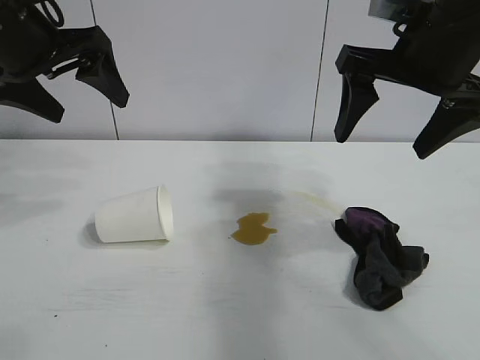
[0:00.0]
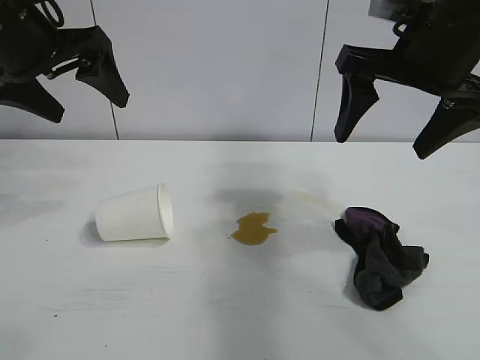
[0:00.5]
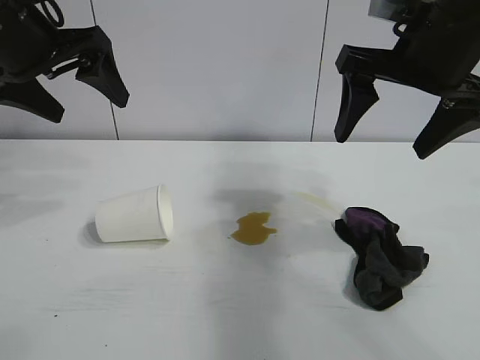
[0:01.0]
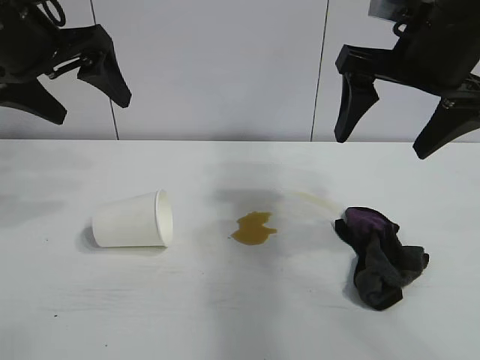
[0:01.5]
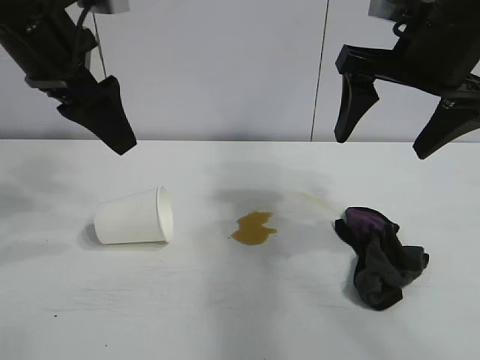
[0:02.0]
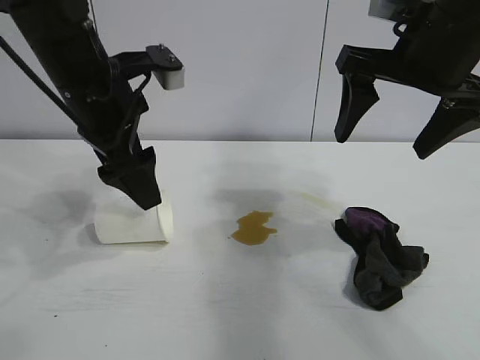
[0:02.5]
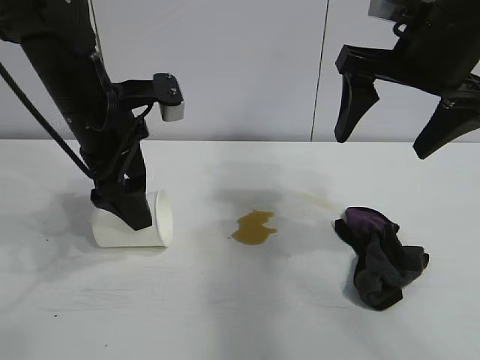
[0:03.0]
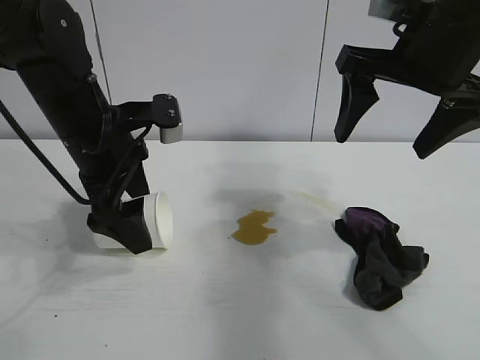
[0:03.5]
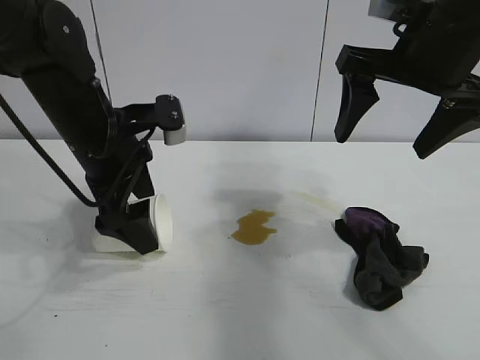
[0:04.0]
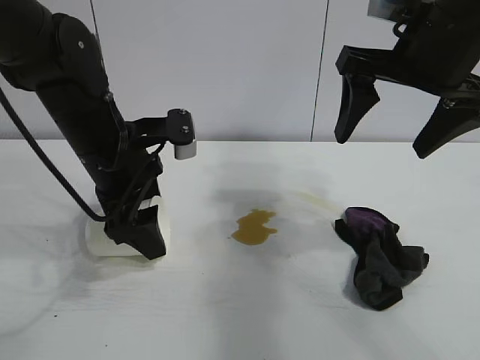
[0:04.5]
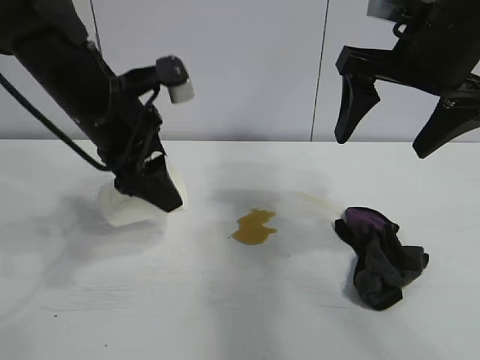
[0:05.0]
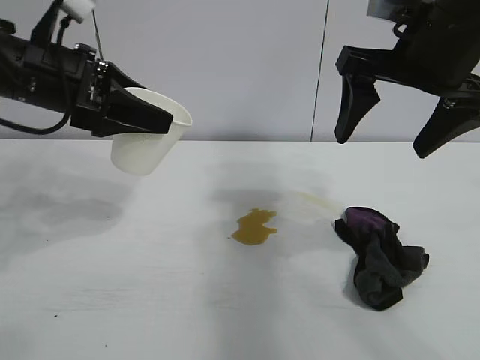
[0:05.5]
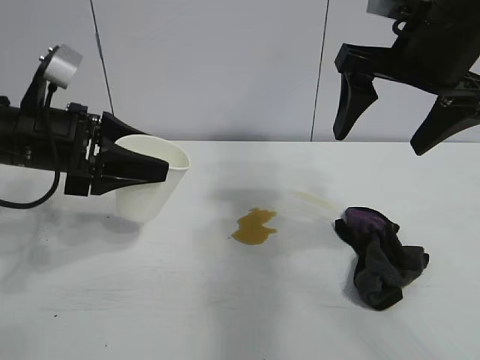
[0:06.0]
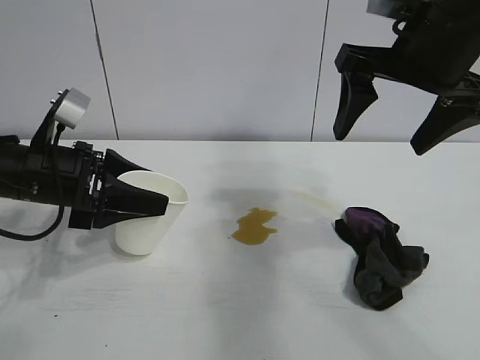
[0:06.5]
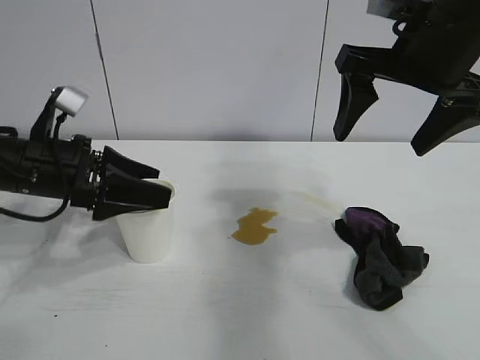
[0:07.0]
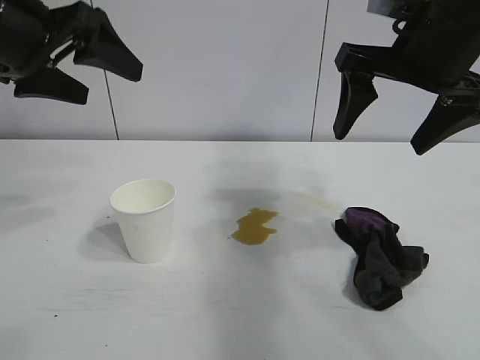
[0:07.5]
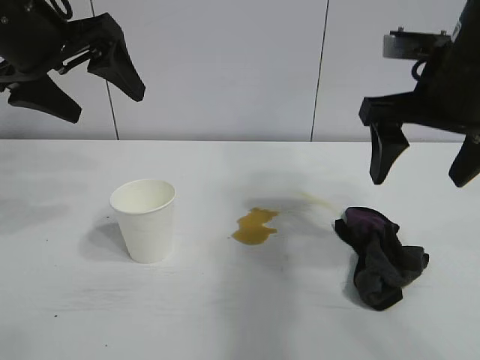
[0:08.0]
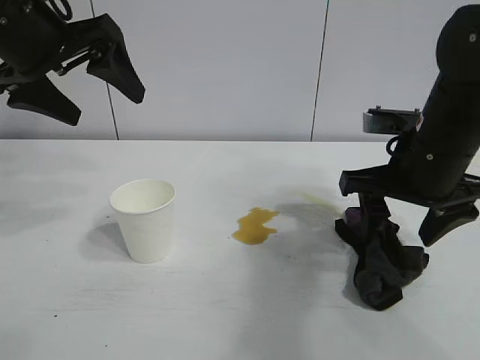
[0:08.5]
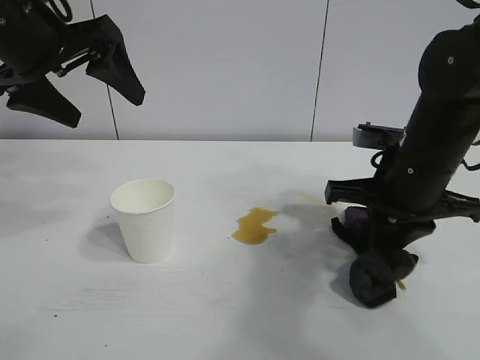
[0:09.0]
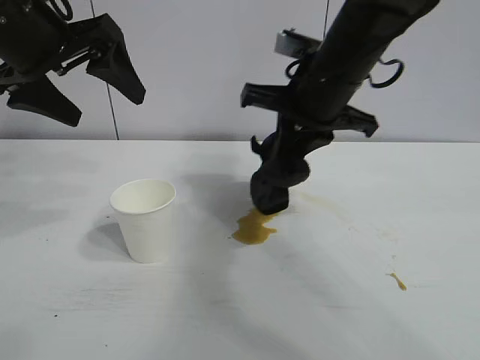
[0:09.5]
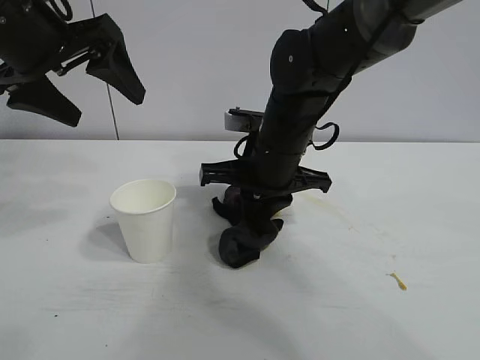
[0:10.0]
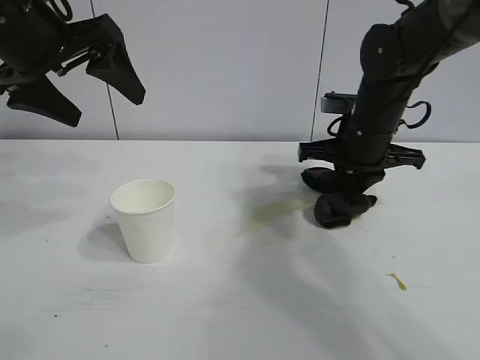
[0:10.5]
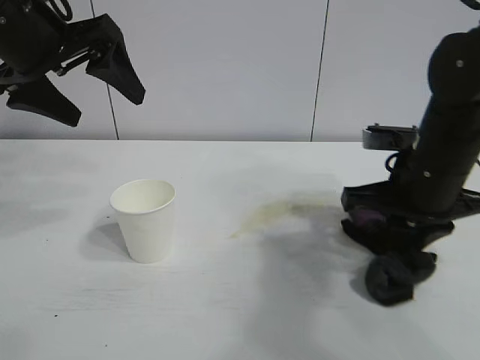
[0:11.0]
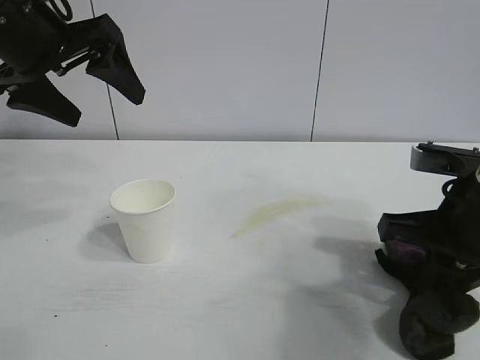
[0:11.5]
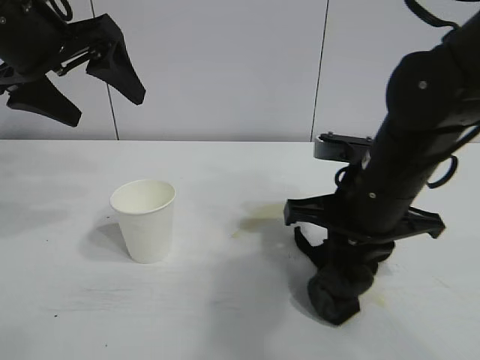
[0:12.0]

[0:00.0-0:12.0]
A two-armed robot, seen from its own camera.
Task of the whole recording: the left gripper pick up the fallen cup and place it upright, the right gripper grasp the black rag and wipe the stain on the table, the right gripper put the black rag back in its original position.
Step, 0:01.5 to 0:04.0: Grasp the paper cup with left gripper.
Step, 0:04.5 to 0:06.5: Stand the paper cup upright with left gripper.
Step, 0:07.0 to 0:08.5: Grasp the rag with right gripper.

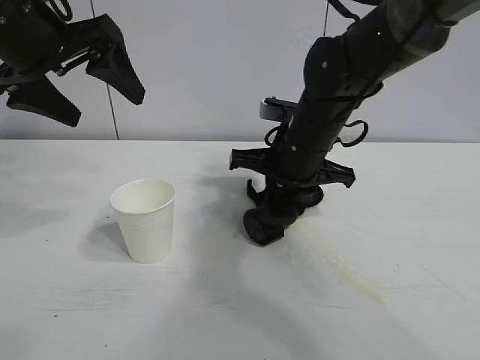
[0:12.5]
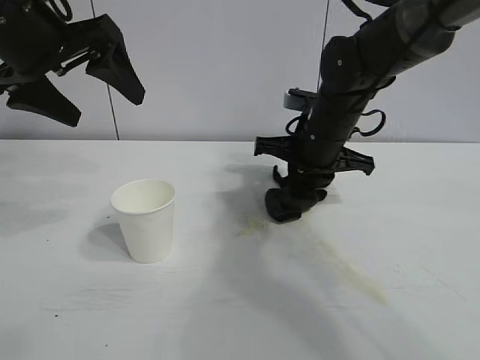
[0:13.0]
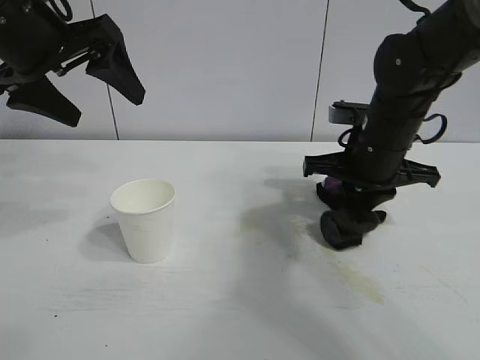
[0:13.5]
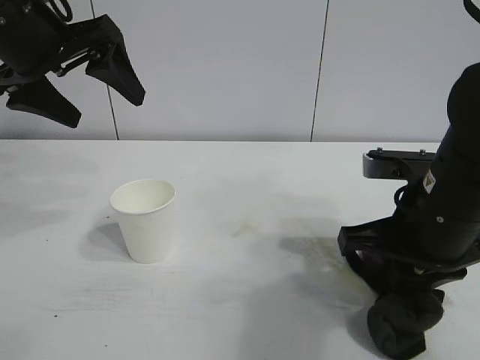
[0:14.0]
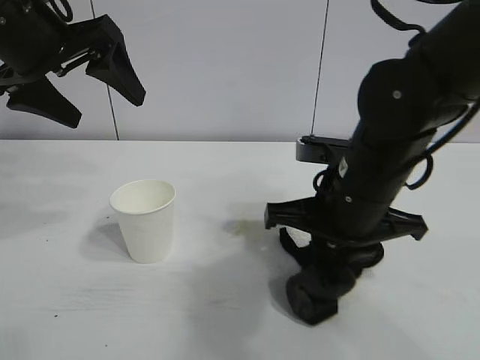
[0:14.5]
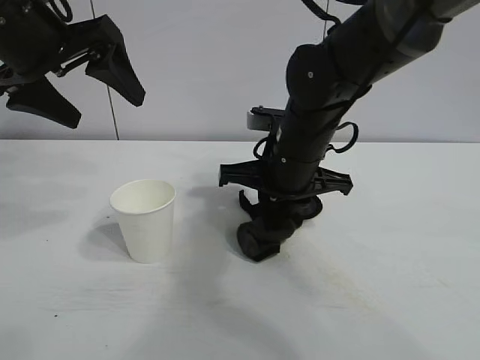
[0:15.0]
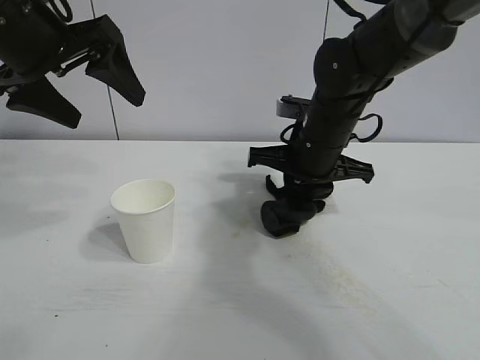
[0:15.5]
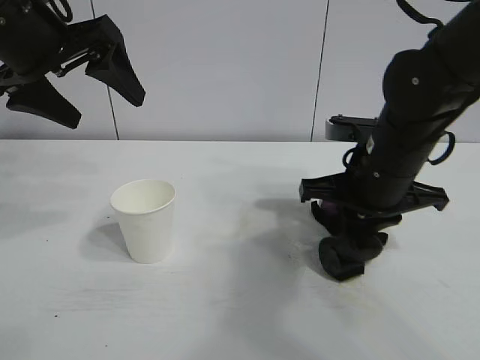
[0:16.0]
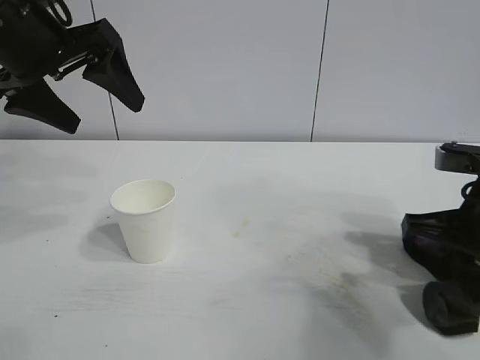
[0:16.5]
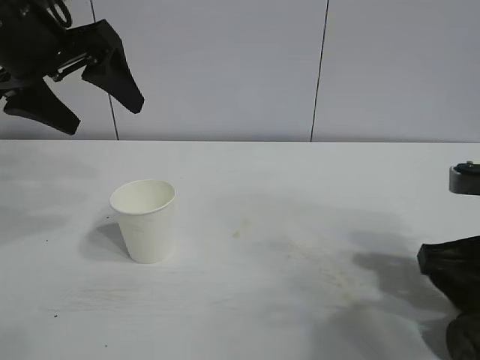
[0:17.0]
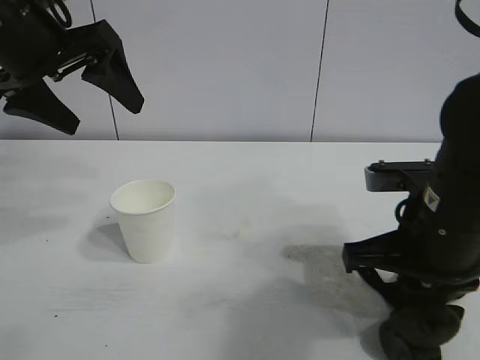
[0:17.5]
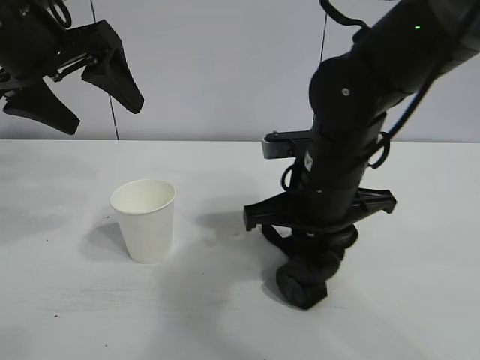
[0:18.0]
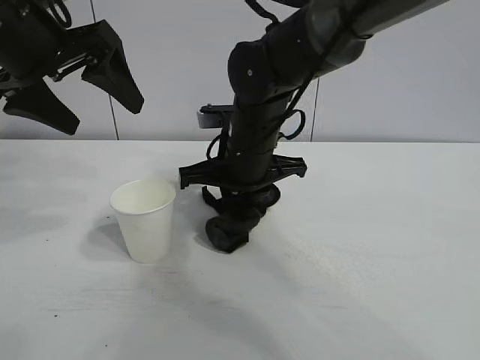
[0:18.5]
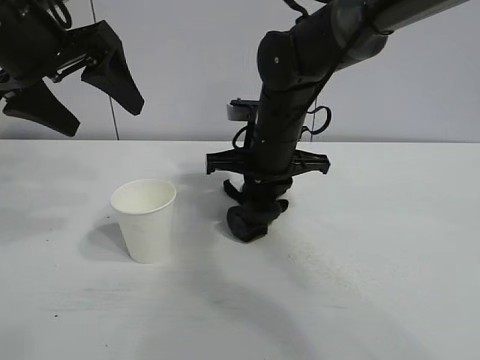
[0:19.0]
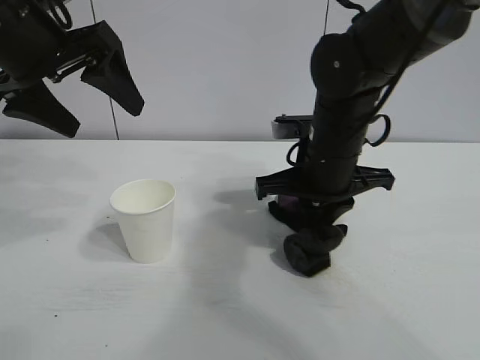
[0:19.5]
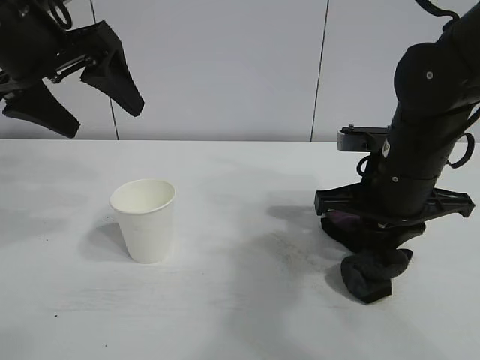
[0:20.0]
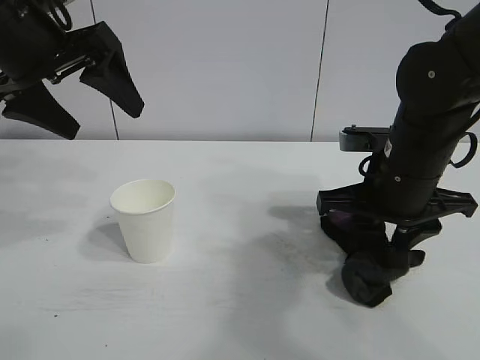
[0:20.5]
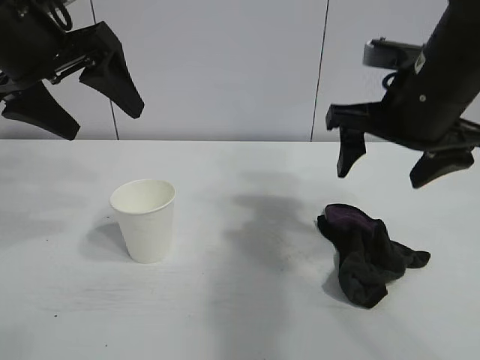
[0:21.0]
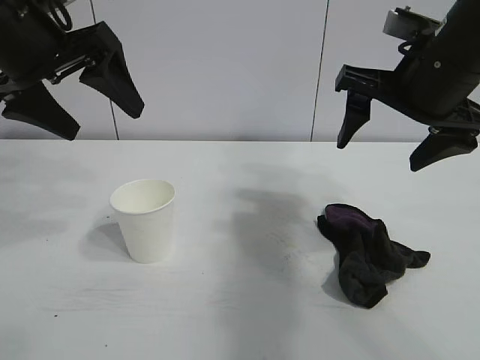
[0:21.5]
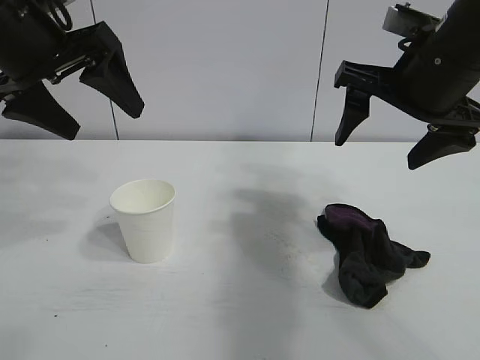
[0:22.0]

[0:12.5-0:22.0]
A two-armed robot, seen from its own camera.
Task of the whole recording: the left gripper pick up the fallen cup and place it upright, the right gripper grasp the black rag and wipe the stain on the table, the right gripper put the black rag back in its original position.
Step, 0:12.5 to 0:20.0: Wipe the stains off the table with the rag with right gripper.

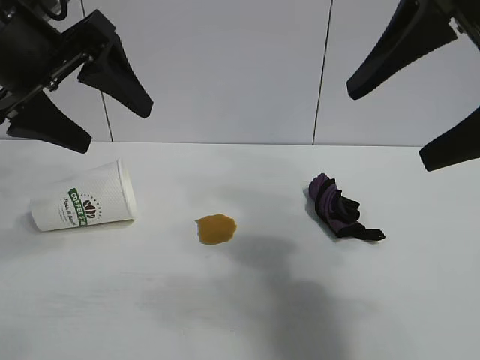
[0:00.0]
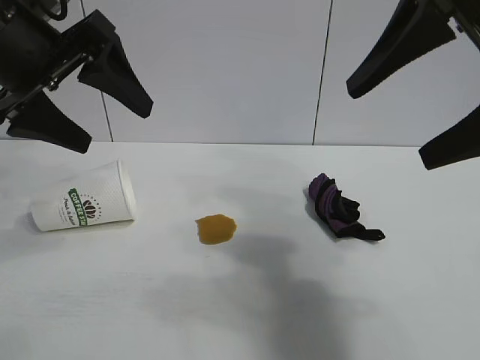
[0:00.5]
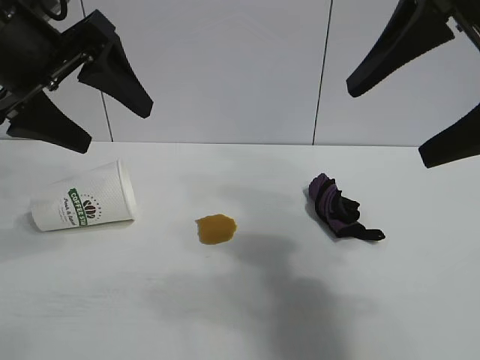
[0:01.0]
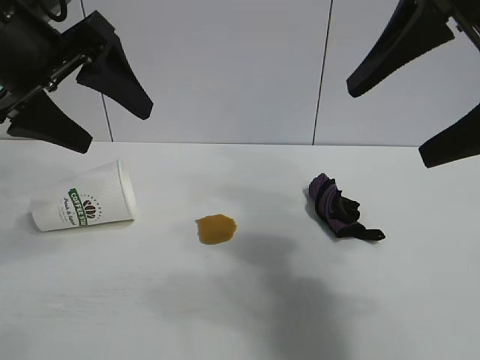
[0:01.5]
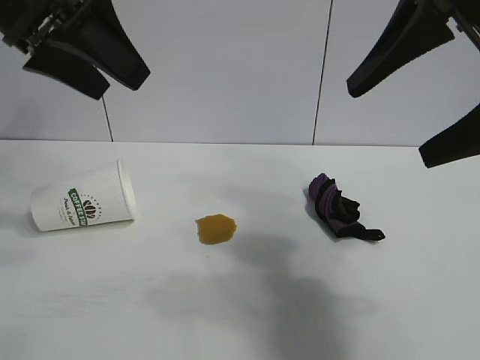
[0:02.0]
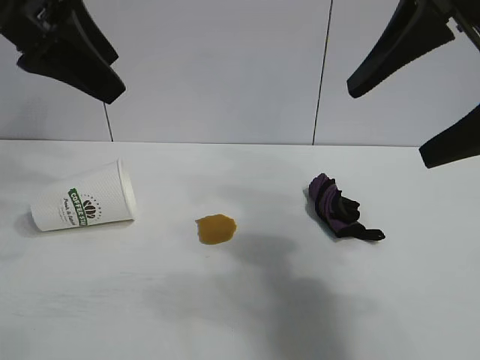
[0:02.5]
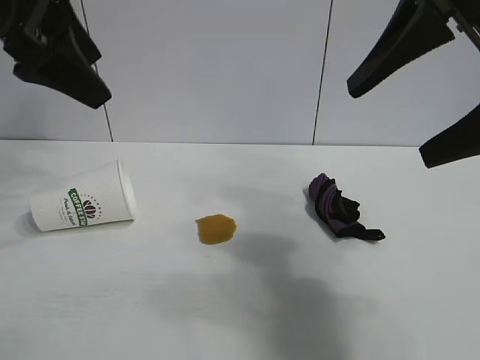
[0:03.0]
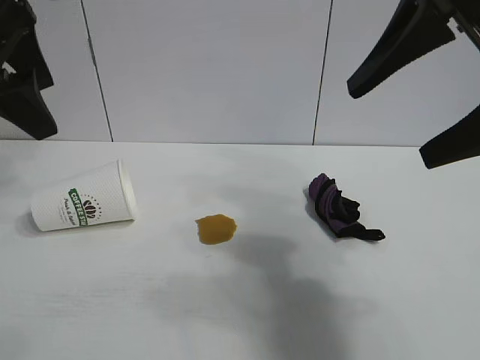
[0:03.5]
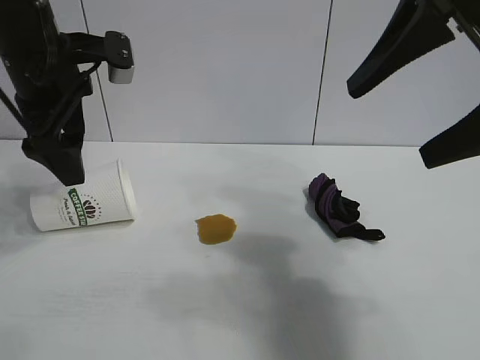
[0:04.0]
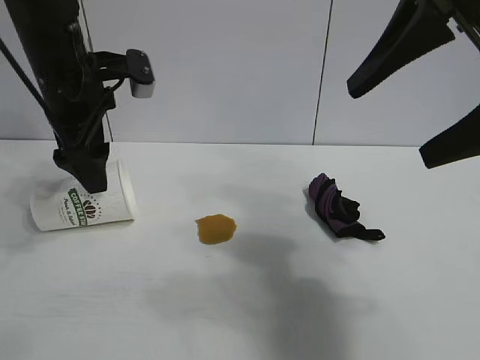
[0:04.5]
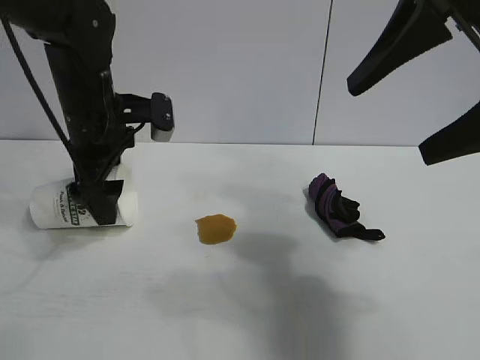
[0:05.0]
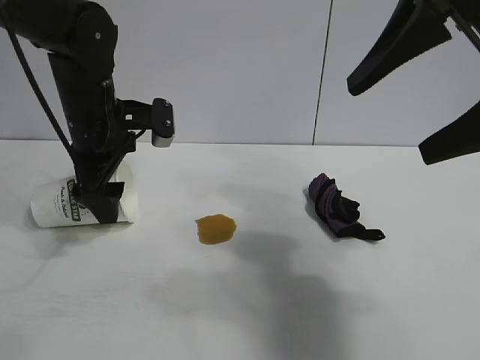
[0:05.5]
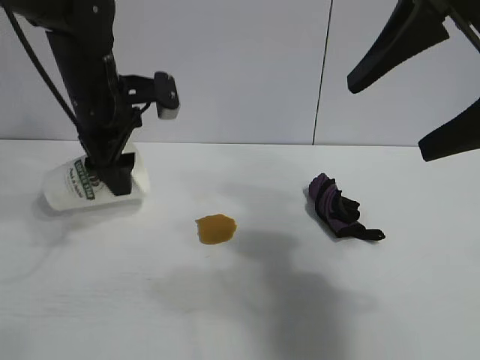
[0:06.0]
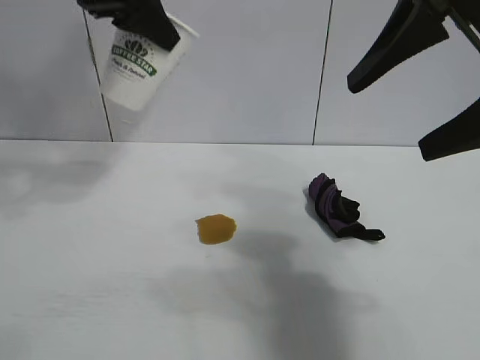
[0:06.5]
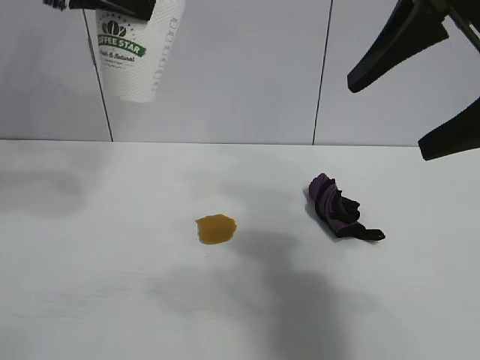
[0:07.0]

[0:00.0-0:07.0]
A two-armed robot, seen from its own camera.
Task of the whole recording: the left gripper pick up the fallen cup and place it upright, the right gripper grasp the black rag and wipe the stain on the table, the right gripper put the black rag back in its original position.
Step, 0:01.5 to 0:05.5: Grasp the paper cup with left gripper.
